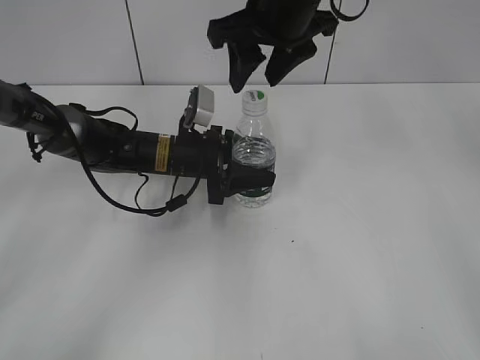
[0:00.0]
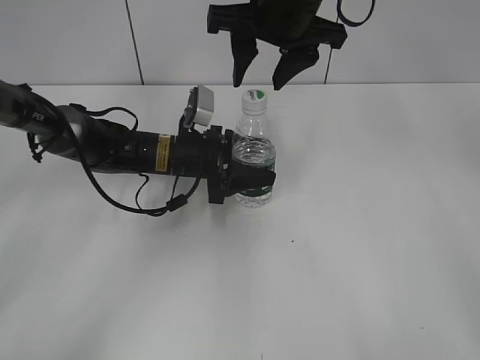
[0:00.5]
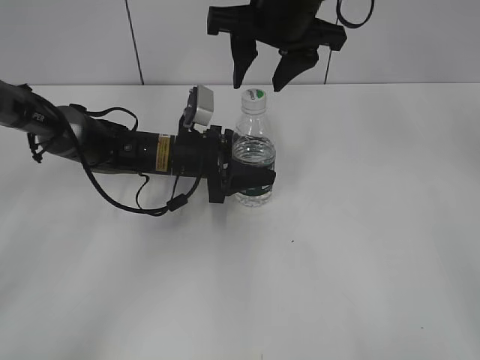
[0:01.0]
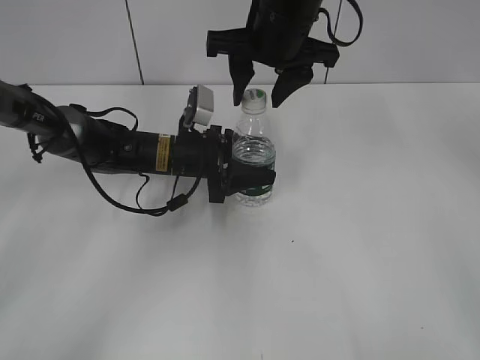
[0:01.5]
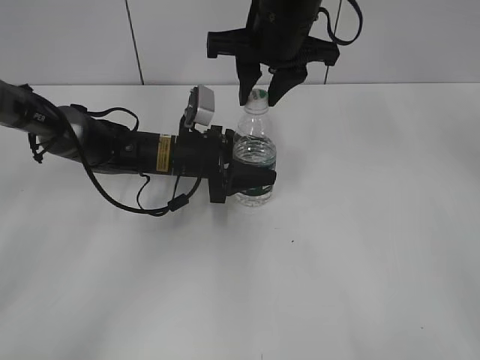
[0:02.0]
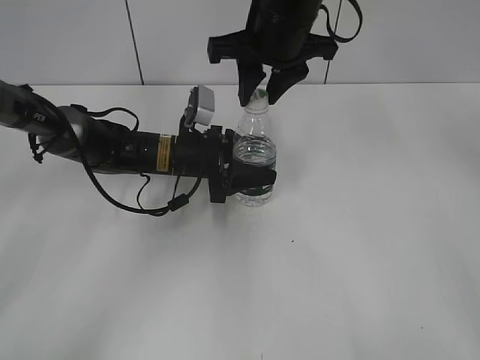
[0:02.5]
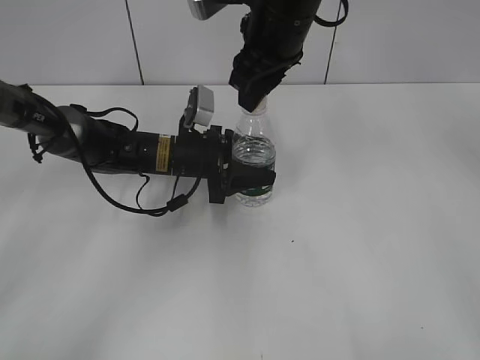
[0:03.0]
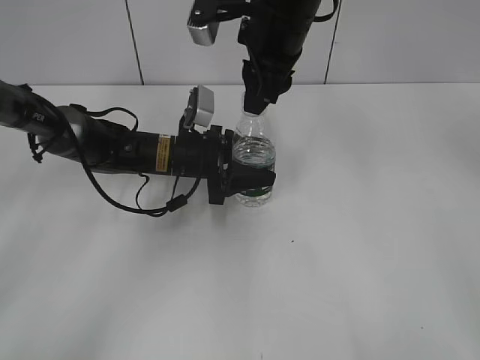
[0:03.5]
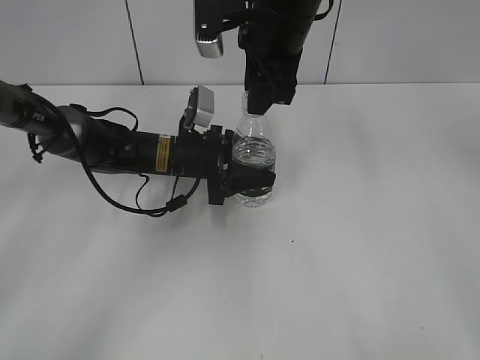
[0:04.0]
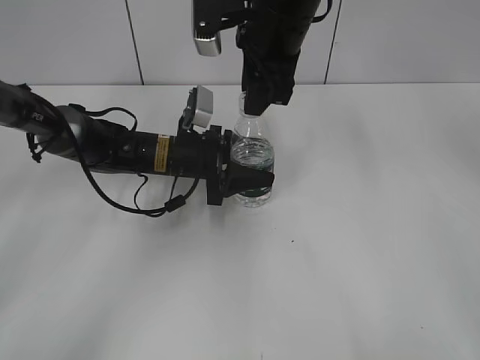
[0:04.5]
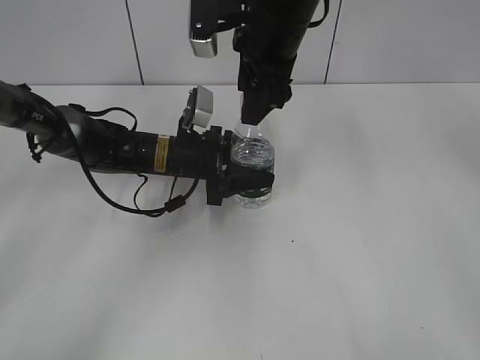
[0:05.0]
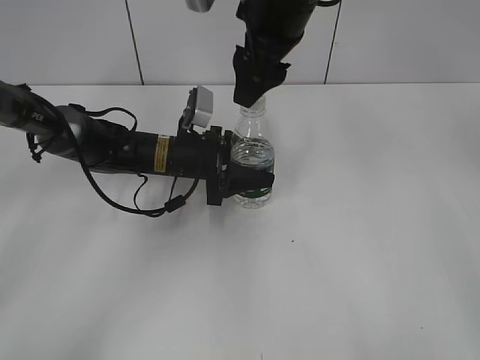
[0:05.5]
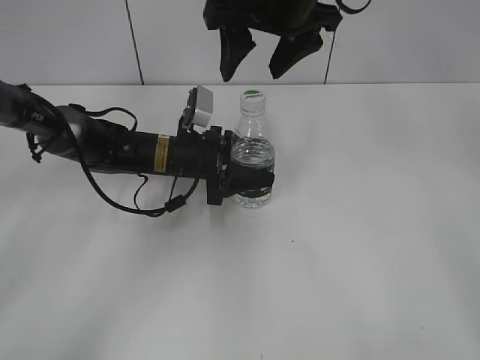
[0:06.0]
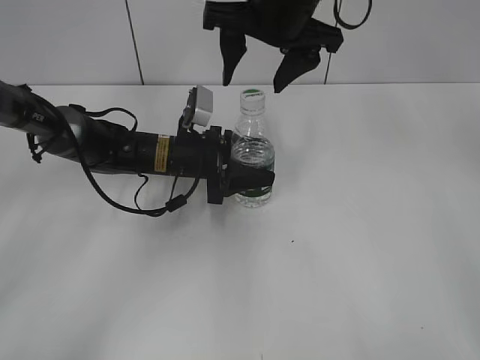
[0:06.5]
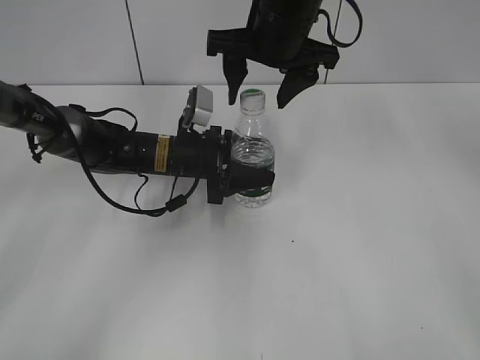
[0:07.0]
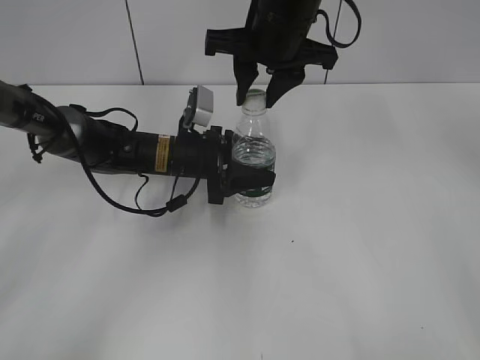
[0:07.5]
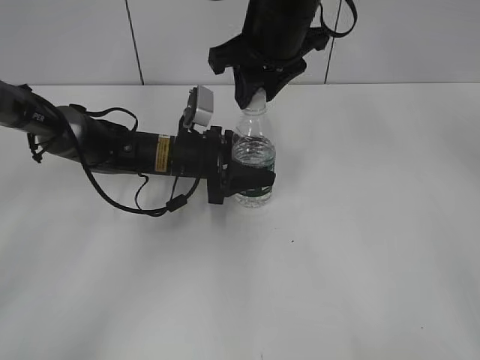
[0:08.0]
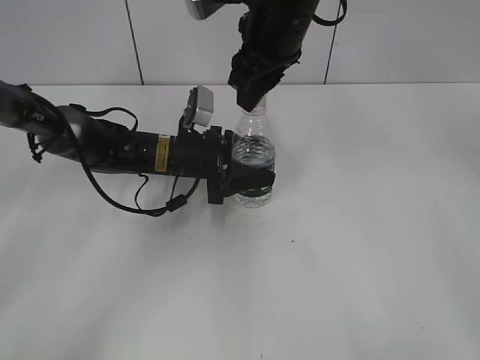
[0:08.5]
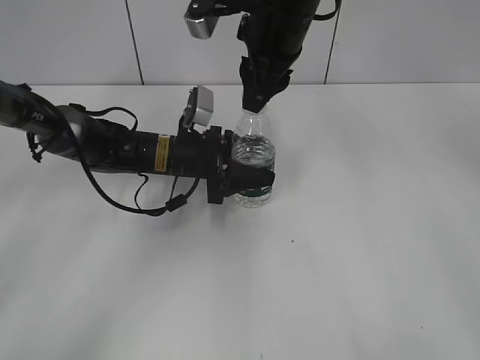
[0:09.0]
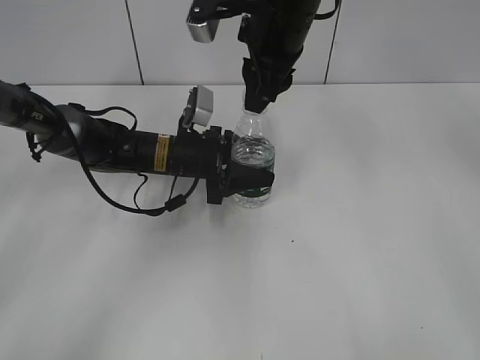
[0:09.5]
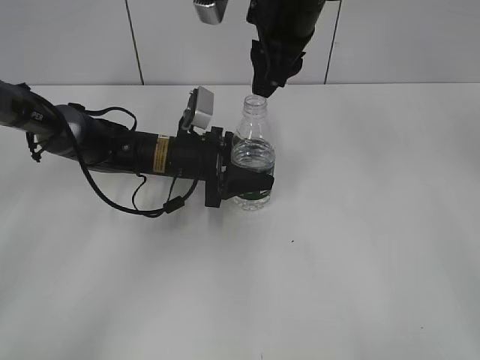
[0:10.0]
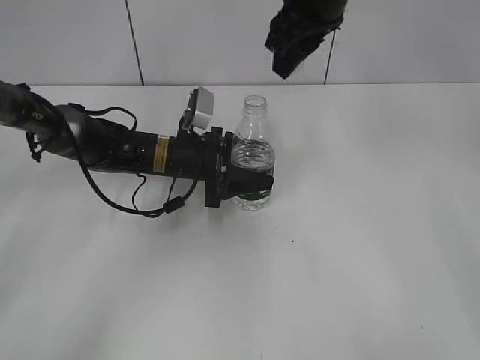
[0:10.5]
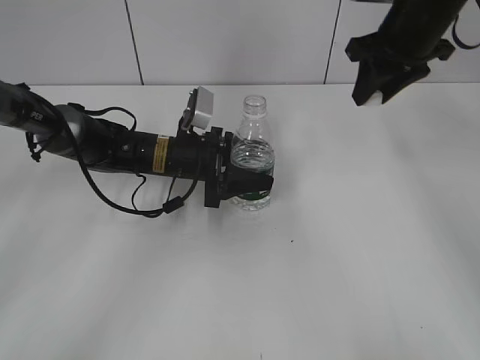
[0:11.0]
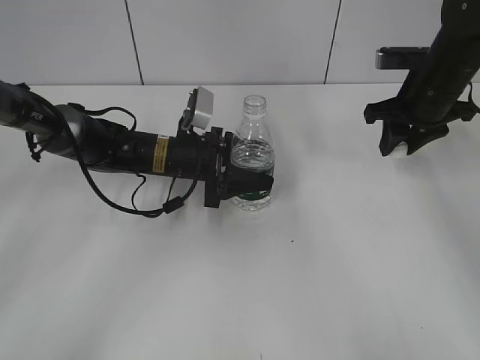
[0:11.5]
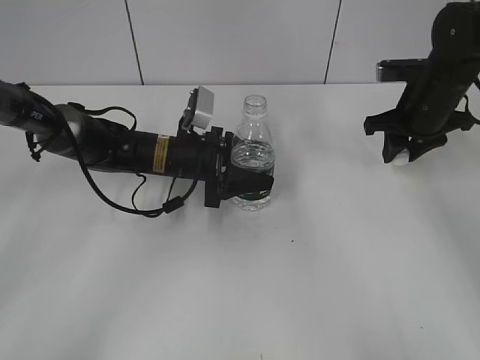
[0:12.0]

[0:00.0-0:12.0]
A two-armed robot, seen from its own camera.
Step, 0:00.0 to 0:10.0: Unscrew the bottle cap with the right gripper while holding the bottle with the left gripper.
0:00.0 to 0:02.0: The right gripper closes up.
0:04.0 to 0:06.0: The right gripper opens.
0:06.0 to 0:08.0: The right gripper closes.
0:10.0 to 0:12.0: The right gripper moves to the right and downward, approximately 25 cm.

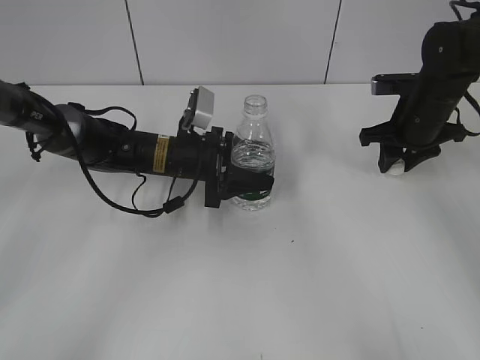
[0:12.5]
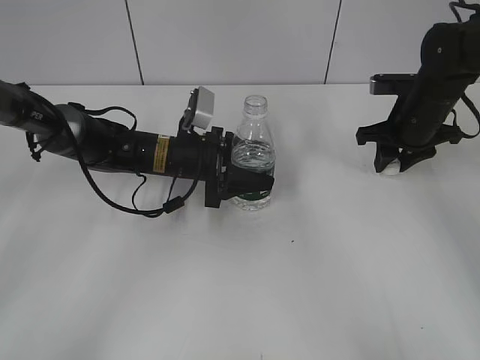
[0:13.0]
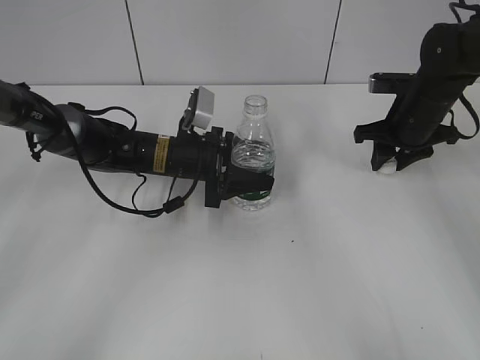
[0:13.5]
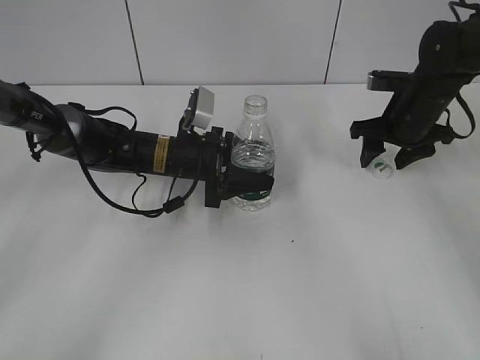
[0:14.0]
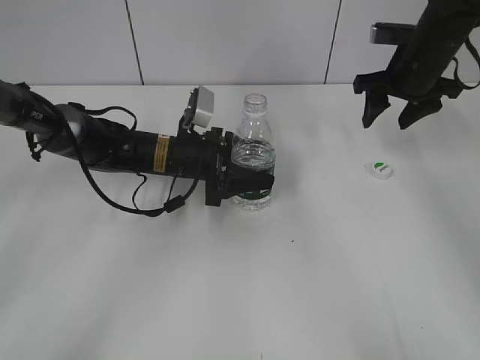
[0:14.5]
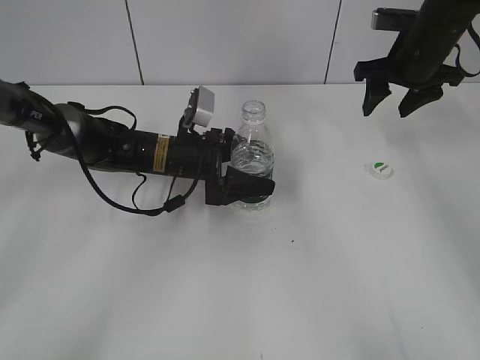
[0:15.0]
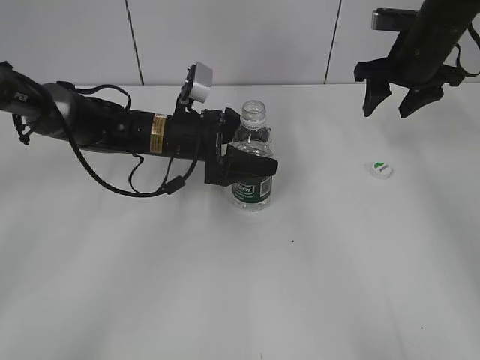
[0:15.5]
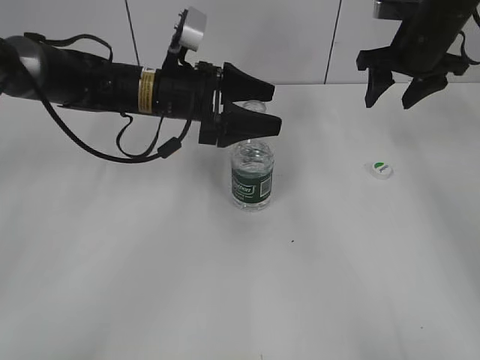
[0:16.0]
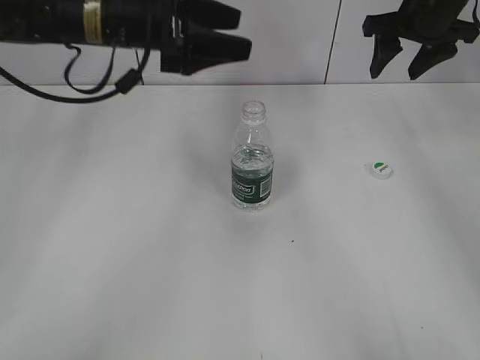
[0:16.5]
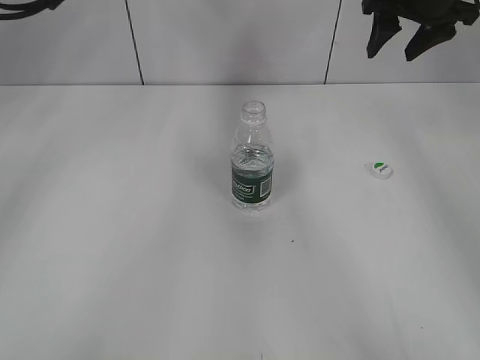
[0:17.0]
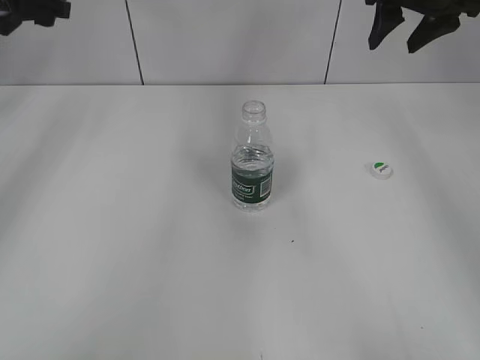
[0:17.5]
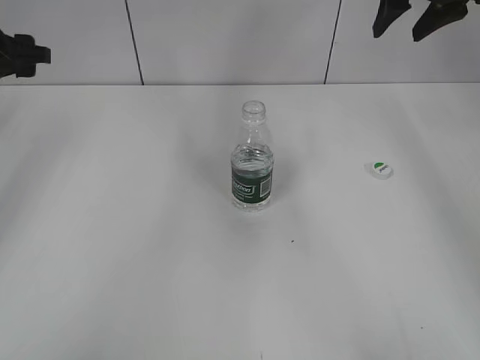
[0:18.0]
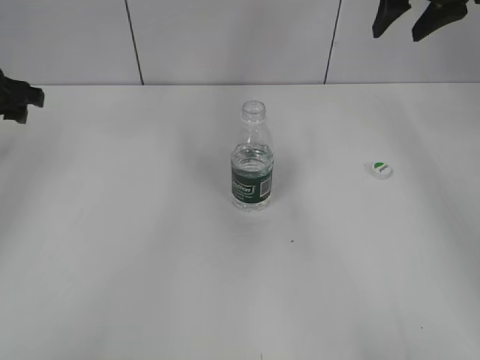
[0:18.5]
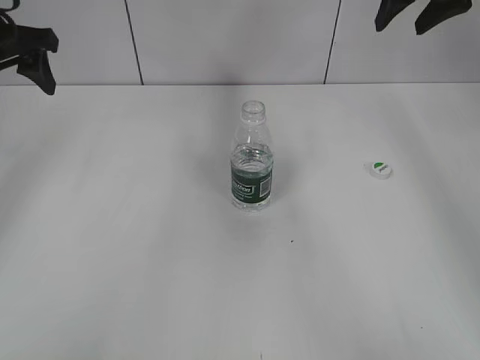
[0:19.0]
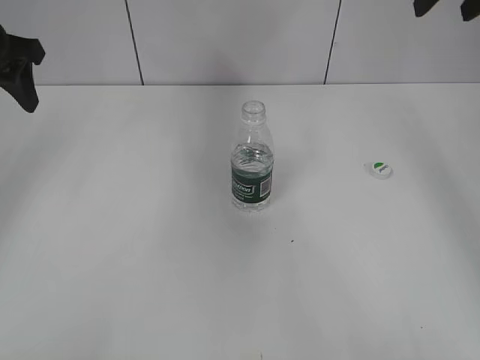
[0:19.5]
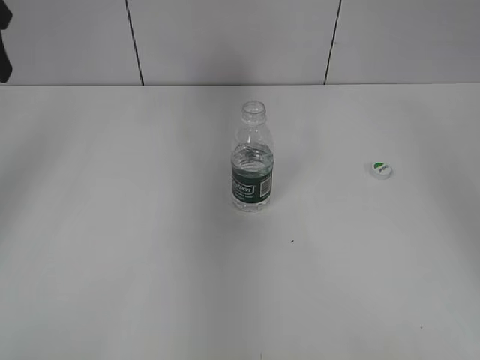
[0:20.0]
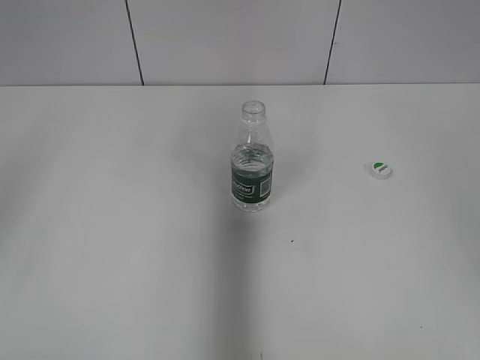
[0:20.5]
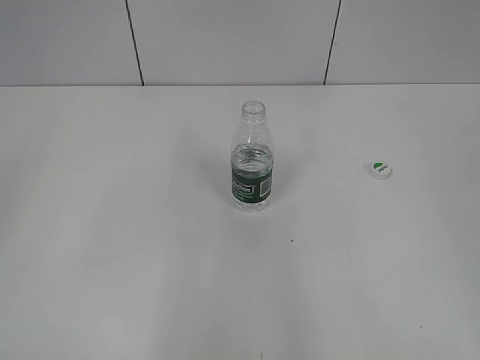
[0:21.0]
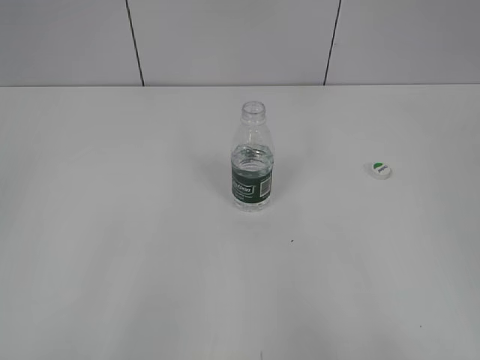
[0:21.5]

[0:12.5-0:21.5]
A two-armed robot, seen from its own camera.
Step, 0:14.5 to 0:16.0: Place the bottle on the table with the left gripper.
0:12.5 to 0:14.5: The right gripper travels upward by about 5 cm, and opens.
0:14.5 to 0:17.0: The right gripper is displaced upward by roughly 10 cm, while the left gripper is displaced upward and to the left by roughly 30 cm.
0:17.0 to 0:19.5: The left gripper travels to the left and backward by some 10 cm, and reaches approximately 10 cm downward, then returns. Meanwhile the right gripper shifts some 15 cm backward and upward.
0:19.5 to 0:21.5: The grippers both shift backward by approximately 35 cm.

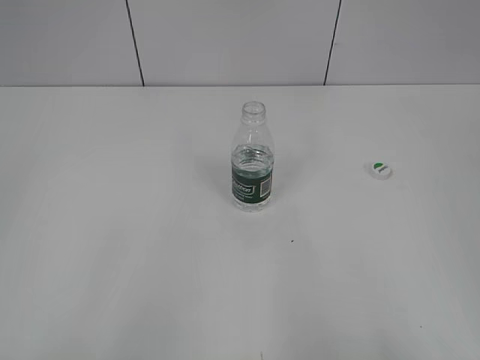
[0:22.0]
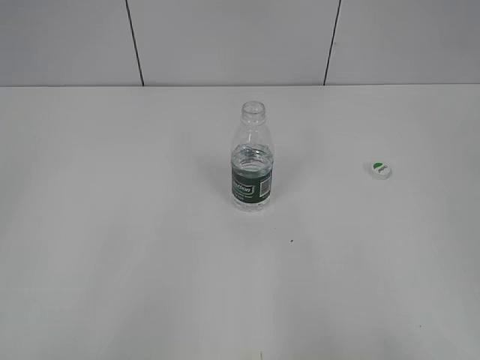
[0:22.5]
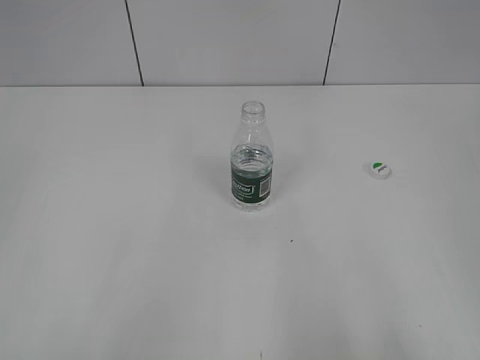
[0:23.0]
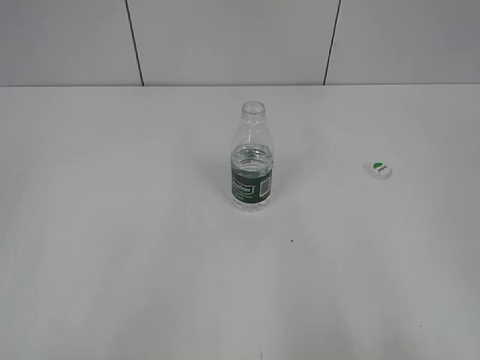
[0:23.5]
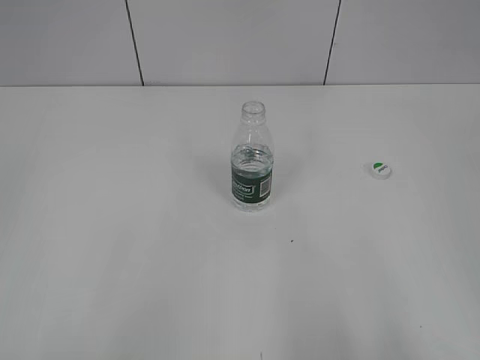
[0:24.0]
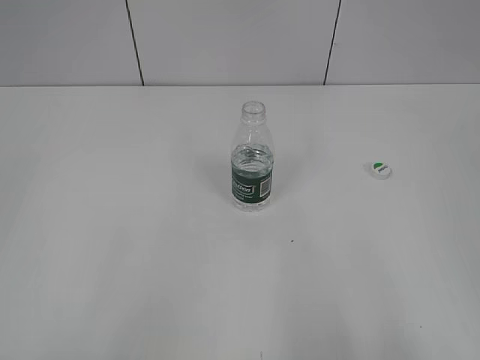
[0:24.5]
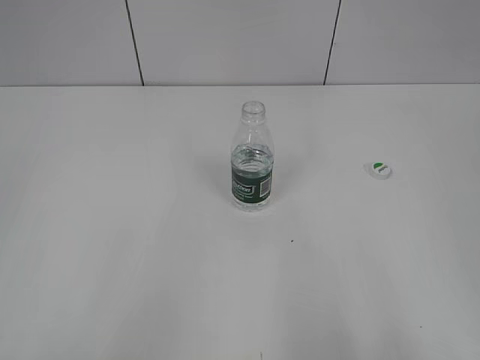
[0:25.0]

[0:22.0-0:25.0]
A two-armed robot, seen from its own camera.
0:23.5 to 0:25.0: Both grippers stay put.
